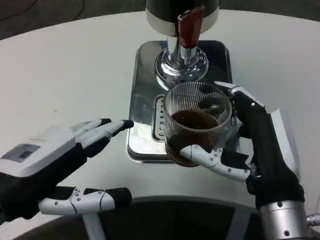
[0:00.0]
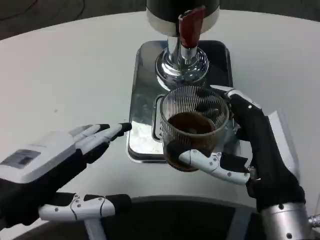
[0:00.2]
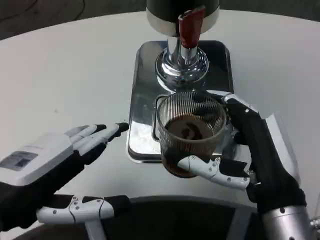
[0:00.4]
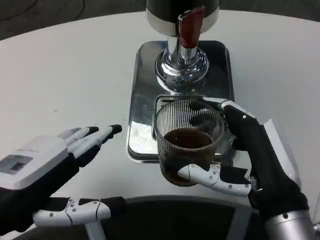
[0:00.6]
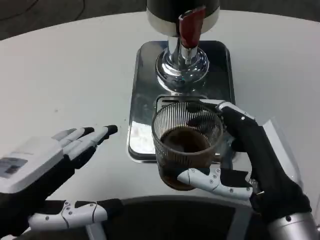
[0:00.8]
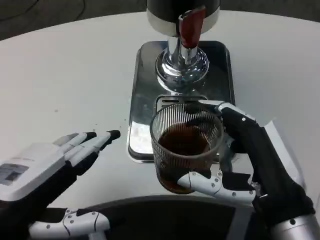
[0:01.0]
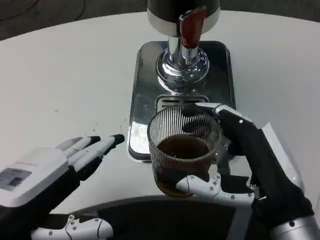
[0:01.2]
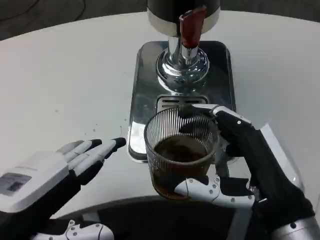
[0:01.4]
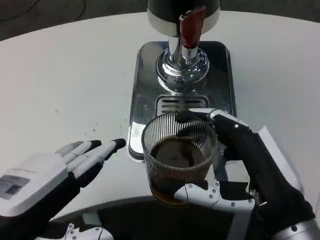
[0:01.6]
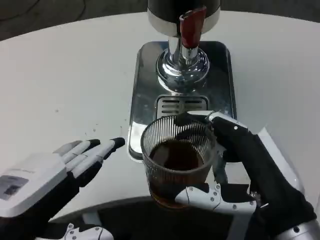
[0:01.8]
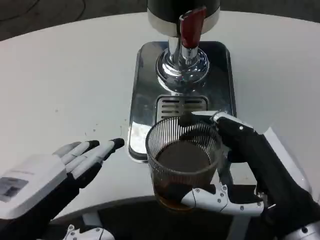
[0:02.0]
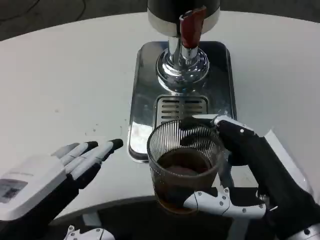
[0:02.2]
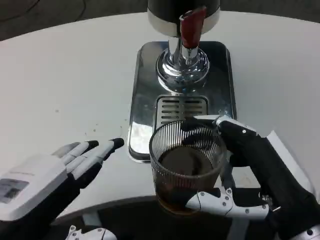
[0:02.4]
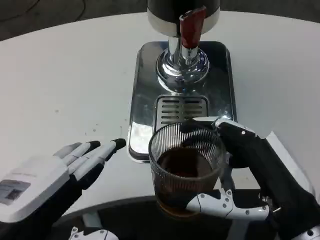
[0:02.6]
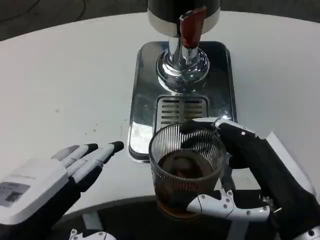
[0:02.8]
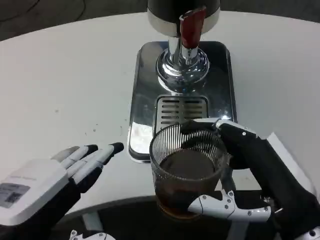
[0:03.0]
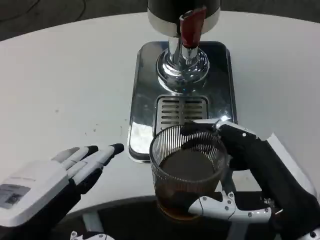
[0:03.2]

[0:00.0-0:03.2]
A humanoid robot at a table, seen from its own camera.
Task of the whole recording: Grasp the cup under the faucet to collect the drink, then remove the cup.
0:00.0 to 0:01.6: The left hand shifts some 5 cm backward.
0:01.6 to 0:03.2: The hands move only a little.

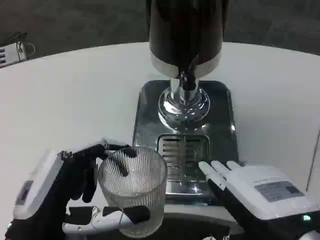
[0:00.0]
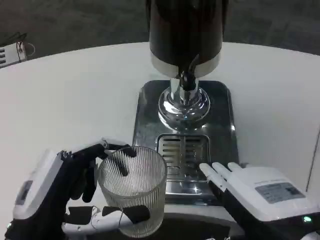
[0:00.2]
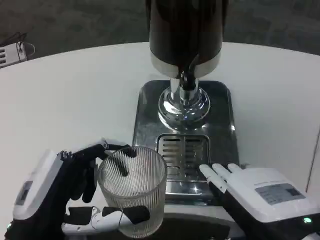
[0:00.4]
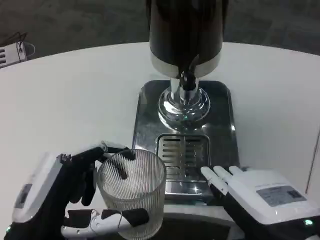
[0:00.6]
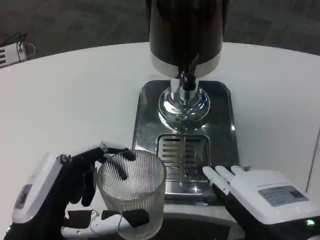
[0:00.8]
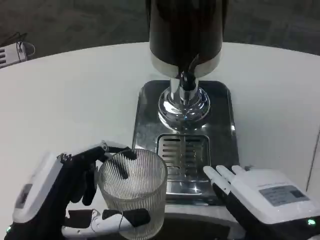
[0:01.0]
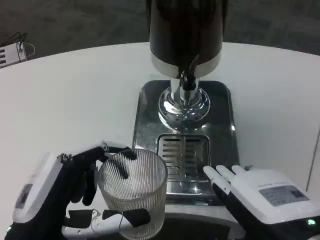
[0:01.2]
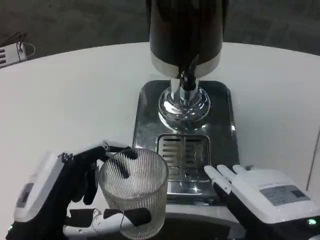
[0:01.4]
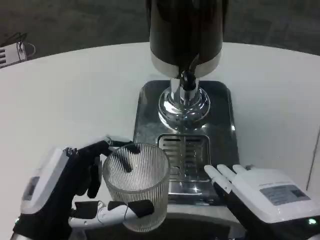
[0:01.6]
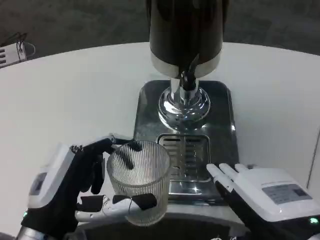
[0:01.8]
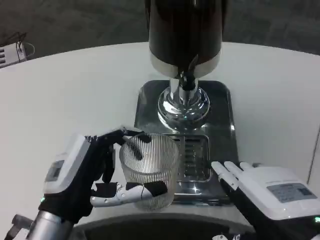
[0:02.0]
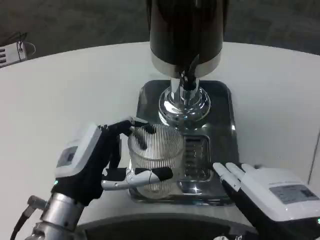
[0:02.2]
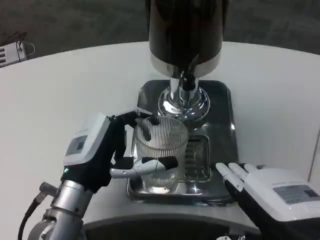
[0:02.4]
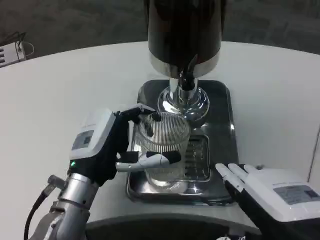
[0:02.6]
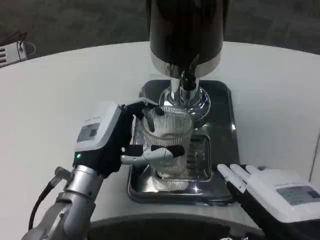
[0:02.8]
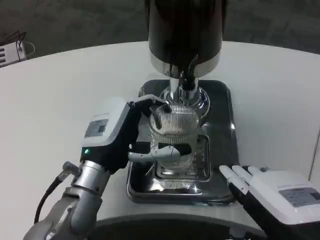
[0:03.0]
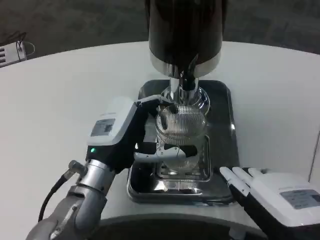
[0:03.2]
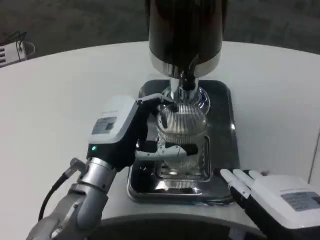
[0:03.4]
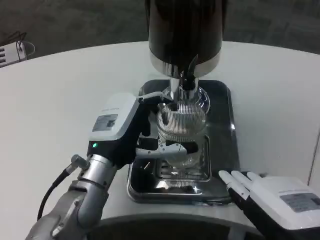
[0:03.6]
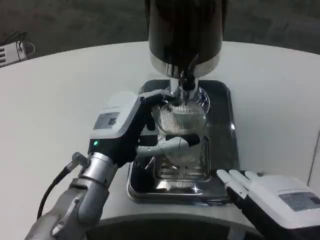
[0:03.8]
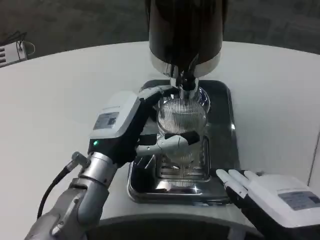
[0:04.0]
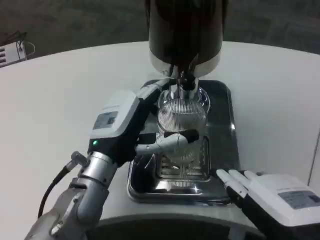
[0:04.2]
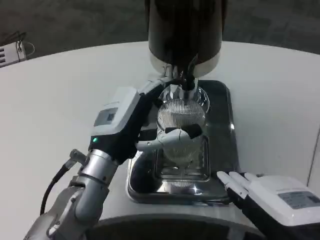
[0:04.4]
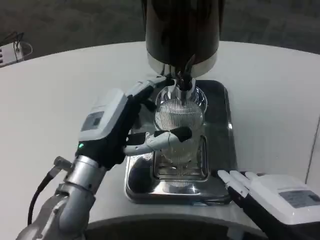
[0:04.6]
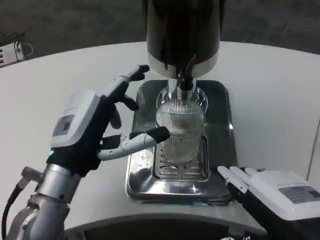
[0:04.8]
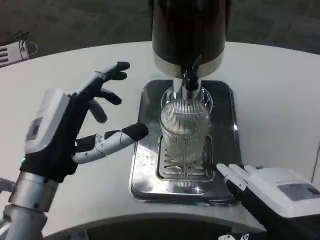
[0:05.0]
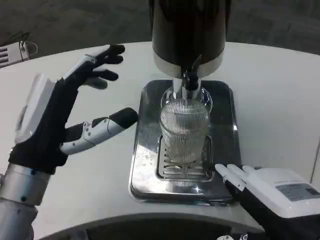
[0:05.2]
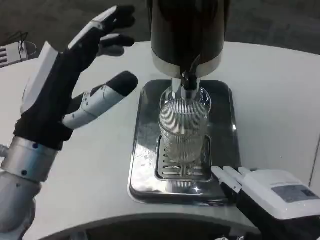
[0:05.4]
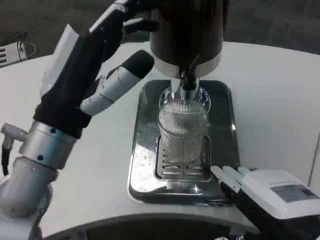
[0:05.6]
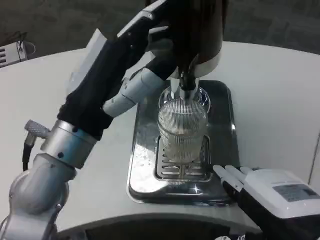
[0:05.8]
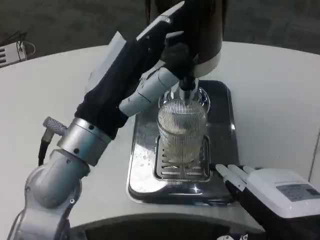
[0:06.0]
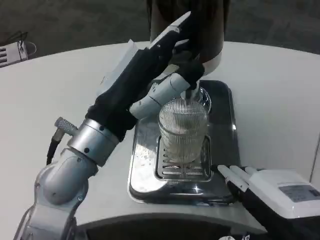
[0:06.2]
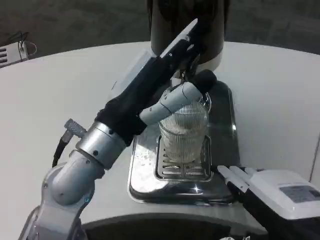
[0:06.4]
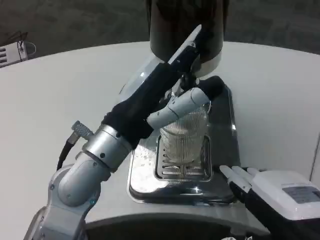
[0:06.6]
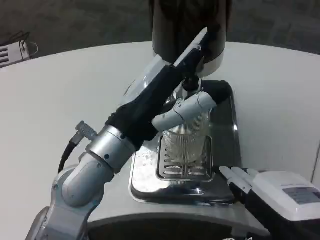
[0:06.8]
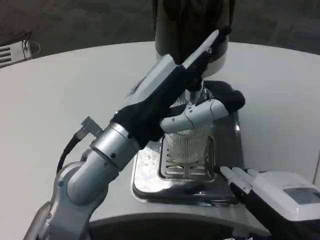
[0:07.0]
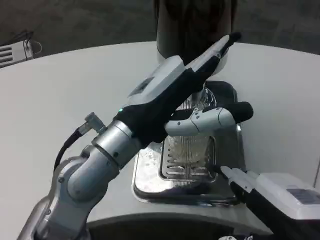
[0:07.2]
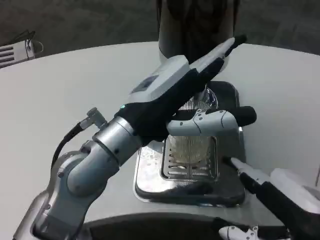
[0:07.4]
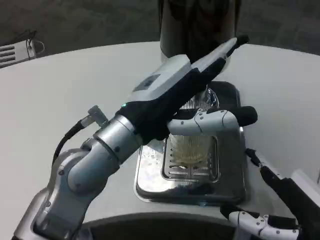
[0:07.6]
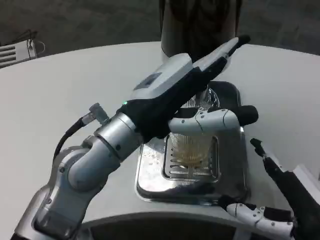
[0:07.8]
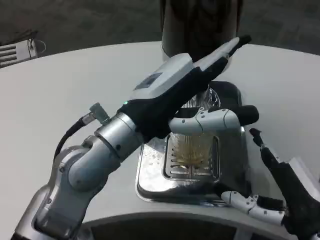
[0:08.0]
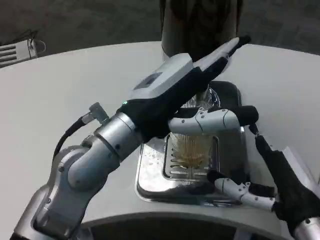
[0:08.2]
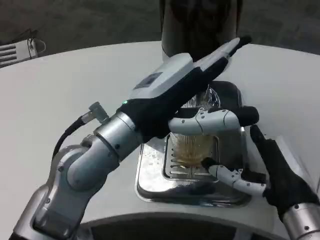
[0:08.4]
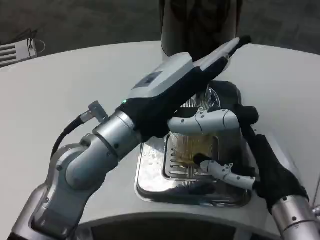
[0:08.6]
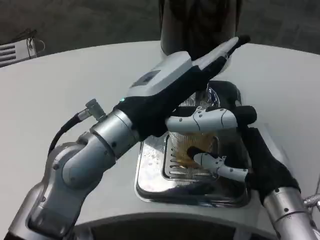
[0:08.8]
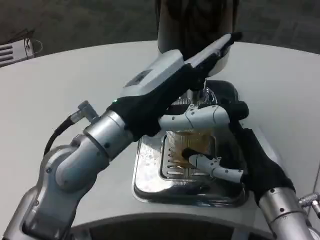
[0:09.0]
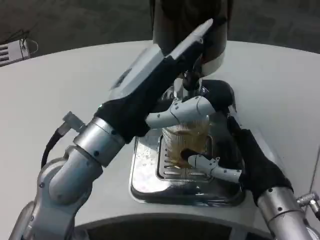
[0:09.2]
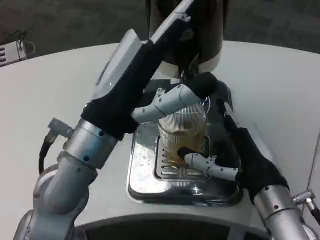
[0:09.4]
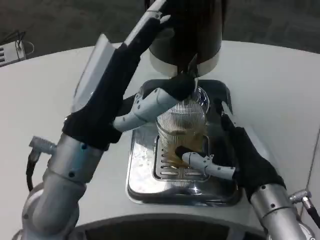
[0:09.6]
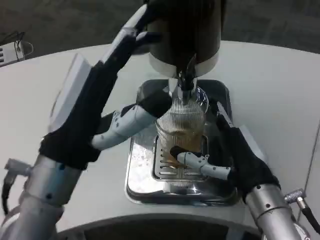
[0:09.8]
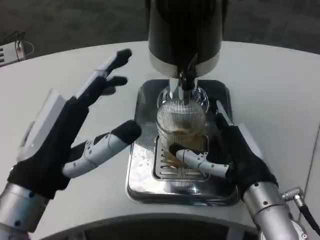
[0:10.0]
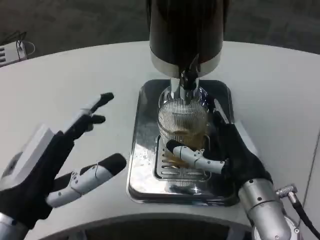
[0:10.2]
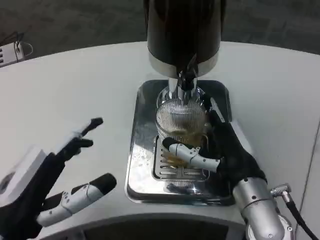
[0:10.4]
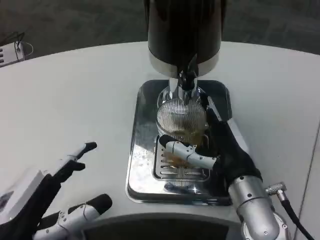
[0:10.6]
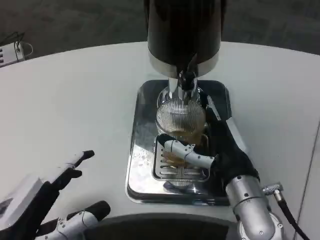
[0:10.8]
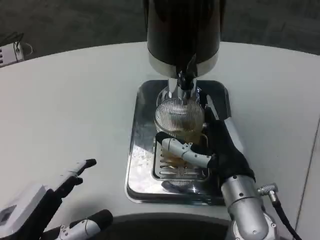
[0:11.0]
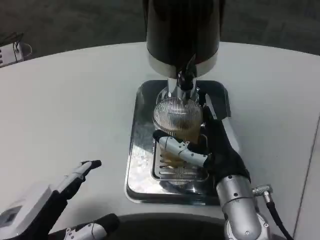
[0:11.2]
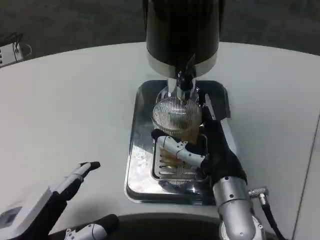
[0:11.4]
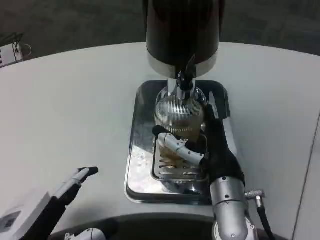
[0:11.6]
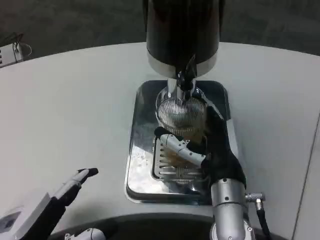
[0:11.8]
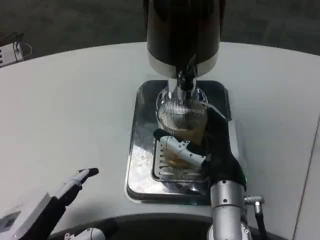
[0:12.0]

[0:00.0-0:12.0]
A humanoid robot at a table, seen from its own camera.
Task of the whole recording: Grasp the cup under the faucet to collect the drink, then remove the cup.
0:00.0 to 0:01.6: Both hands stay put.
0:01.6 to 0:03.0: The left hand goes some 15 cm forward and to the right.
0:03.0 to 0:04.4: There are only small adjustments of the hands.
0:04.4 to 0:06.0: The left hand heads upward and backward, covering about 10 cm.
0:07.6 to 0:09.0: The right hand moves forward and to the left, roughly 10 cm.
0:09.0 to 0:10.4: The left hand moves to the left, downward and backward, approximately 20 cm.
0:10.4 to 0:12.0: The right hand ends up about 5 cm from where it was.

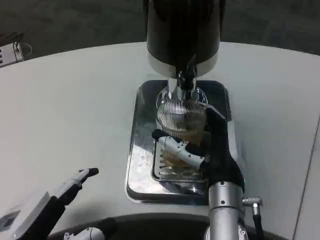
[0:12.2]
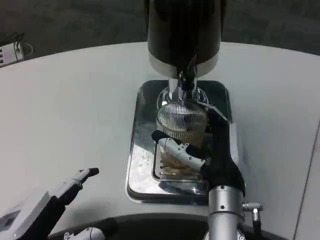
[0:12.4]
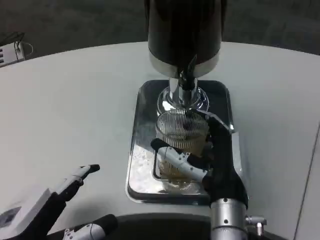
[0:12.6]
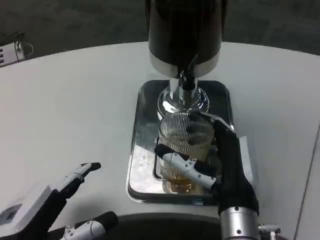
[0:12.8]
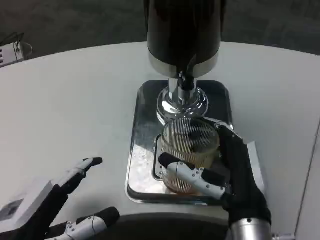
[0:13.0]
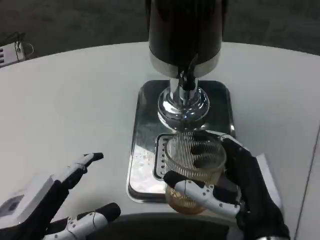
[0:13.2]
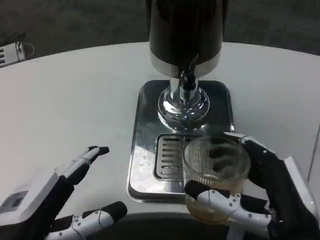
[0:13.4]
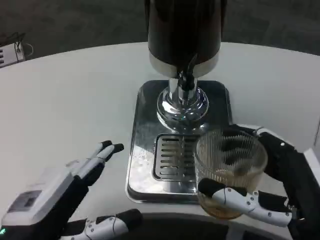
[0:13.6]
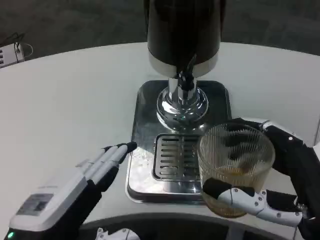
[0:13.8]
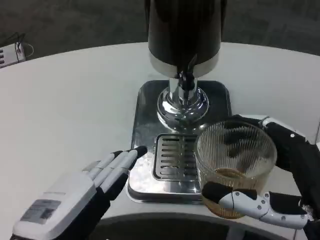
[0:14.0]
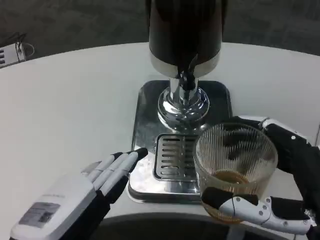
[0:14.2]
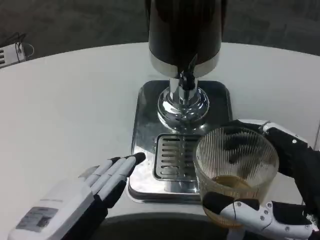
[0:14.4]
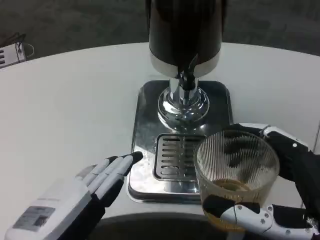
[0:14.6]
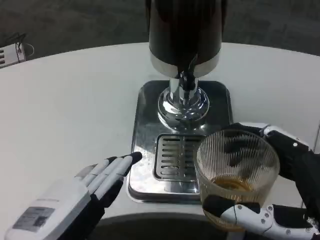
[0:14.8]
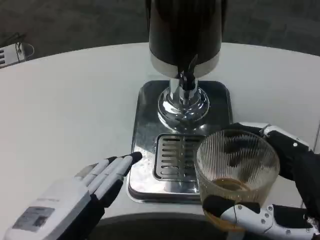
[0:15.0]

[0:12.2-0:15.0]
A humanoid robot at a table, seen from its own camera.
Task of the whole recording: Grasp the cup under the faucet to collect the drink, then remove the cup.
0:12.2 to 0:13.6: The right hand goes roughly 15 cm backward and to the right.

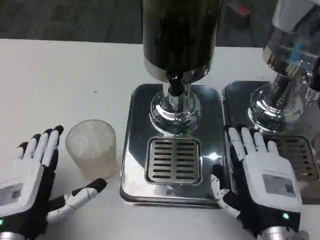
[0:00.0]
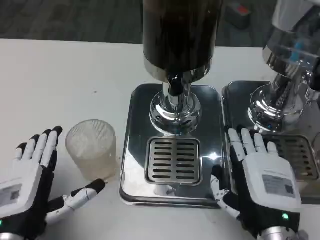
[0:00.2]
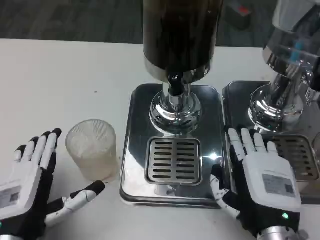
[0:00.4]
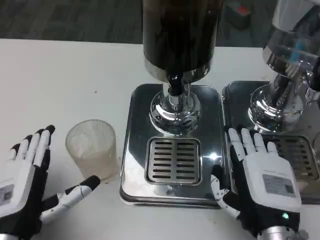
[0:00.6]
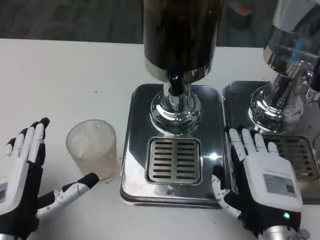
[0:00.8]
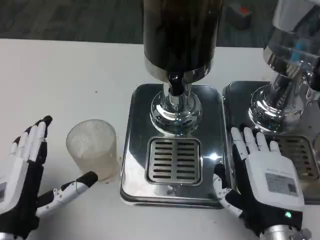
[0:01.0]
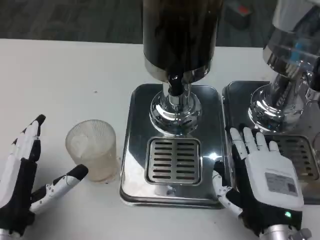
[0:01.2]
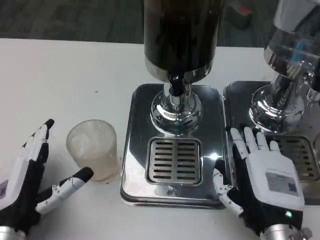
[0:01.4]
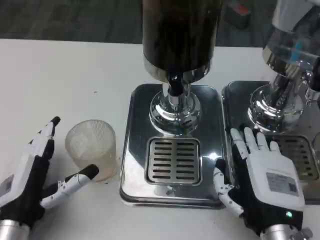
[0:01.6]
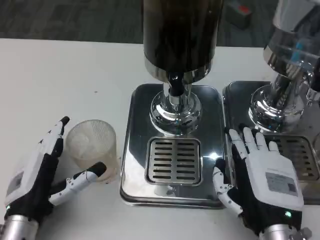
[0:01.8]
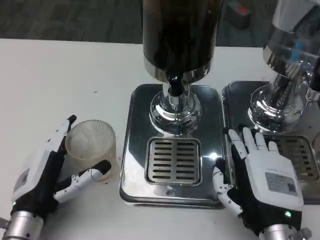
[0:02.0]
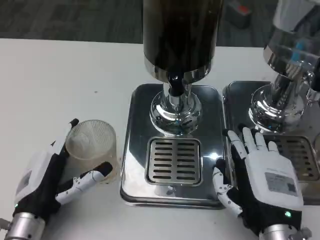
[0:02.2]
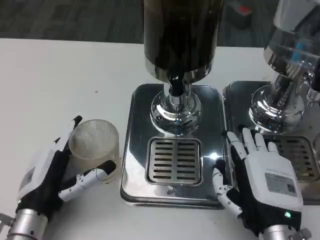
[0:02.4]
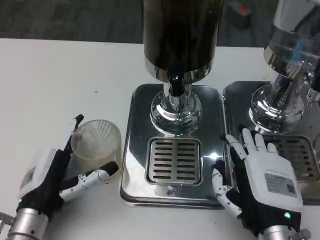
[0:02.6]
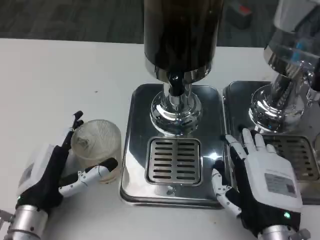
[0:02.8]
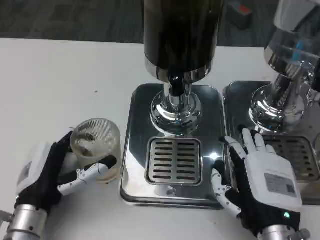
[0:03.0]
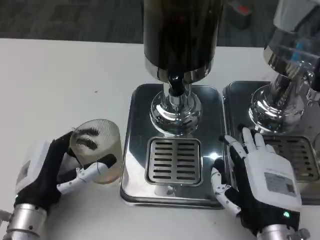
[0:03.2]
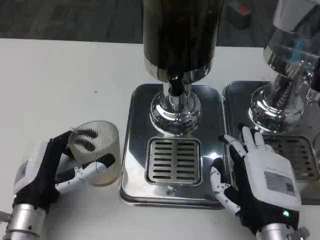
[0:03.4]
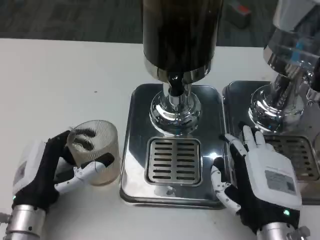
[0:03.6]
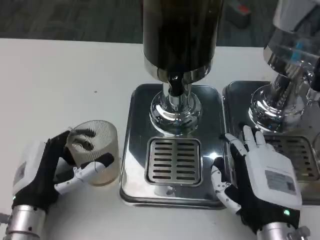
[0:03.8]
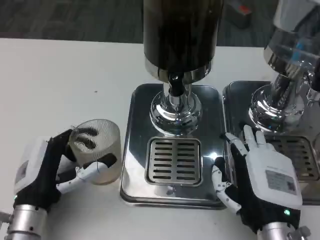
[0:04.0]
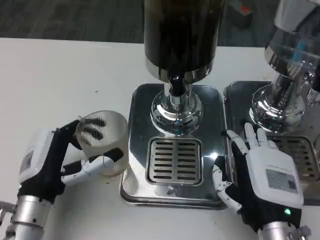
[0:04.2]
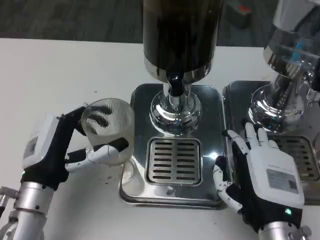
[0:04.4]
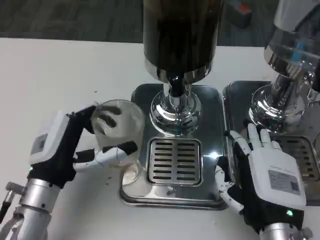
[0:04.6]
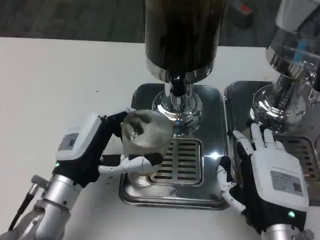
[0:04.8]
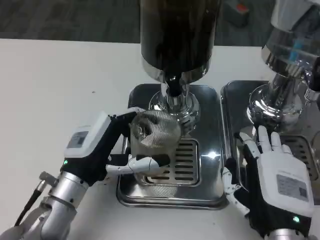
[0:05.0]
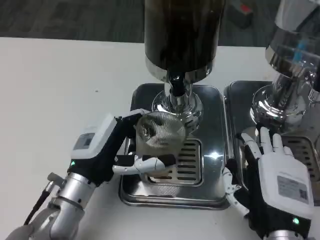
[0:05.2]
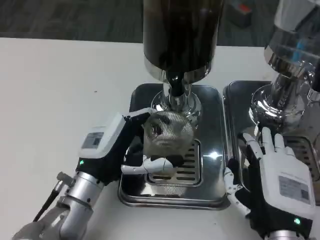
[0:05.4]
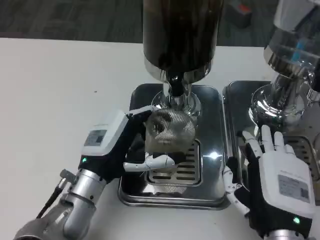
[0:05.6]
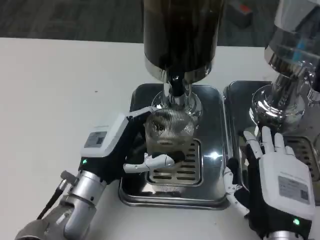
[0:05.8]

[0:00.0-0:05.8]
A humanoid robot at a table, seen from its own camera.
Task of the whole recording: Grasp the cup under the faucet to collect the drink, then remove the cup.
0:01.4 to 0:02.8: The hands stay close to where they were, moving slightly.
0:02.8 to 0:04.4: The hands make only small movements.
0:04.4 to 0:05.8: The left hand is displaced to the right by about 5 cm.
